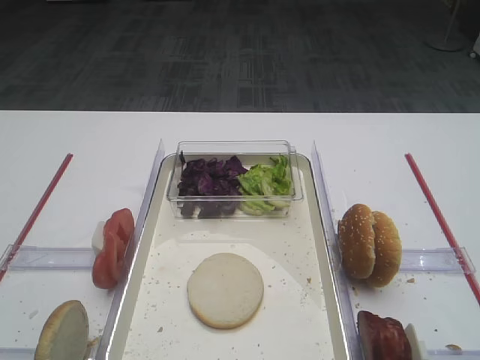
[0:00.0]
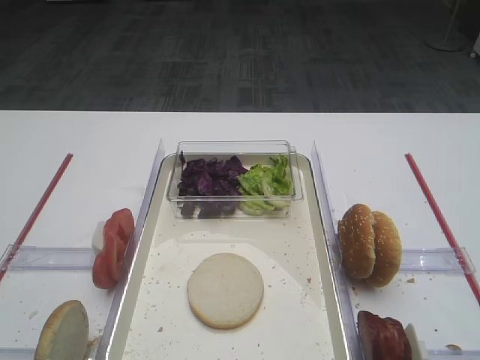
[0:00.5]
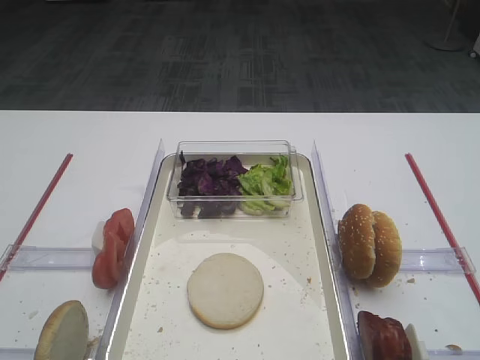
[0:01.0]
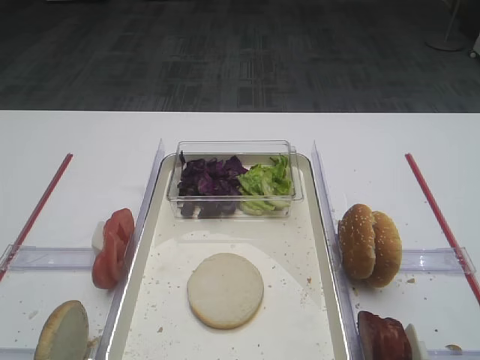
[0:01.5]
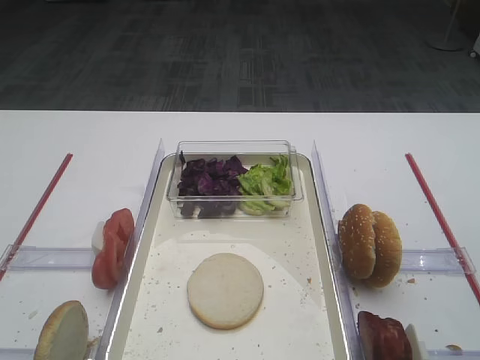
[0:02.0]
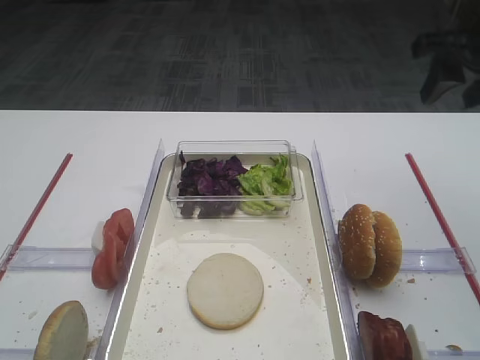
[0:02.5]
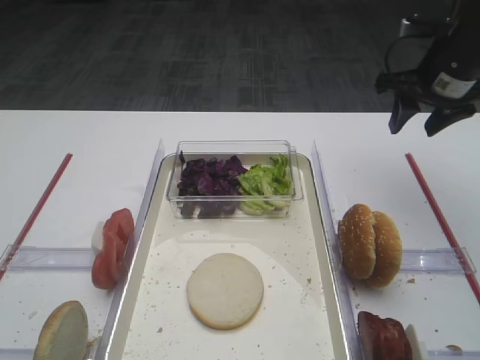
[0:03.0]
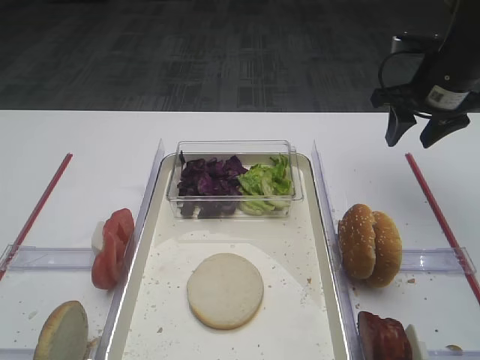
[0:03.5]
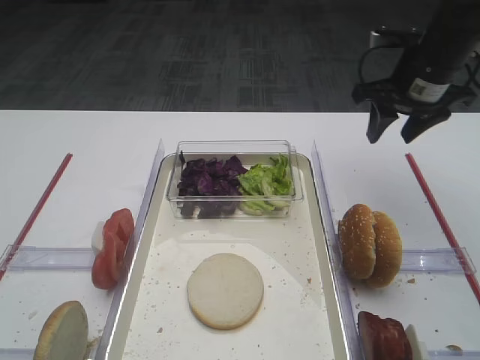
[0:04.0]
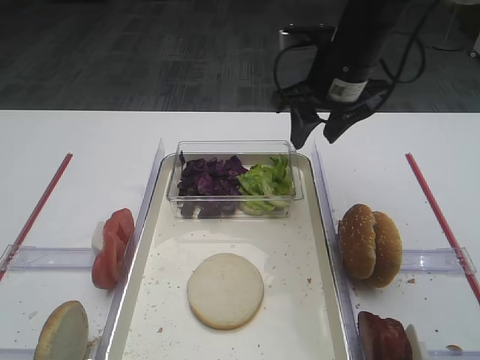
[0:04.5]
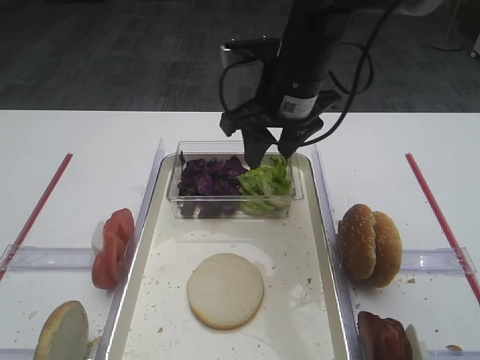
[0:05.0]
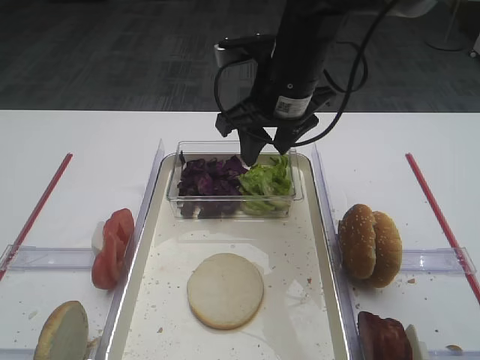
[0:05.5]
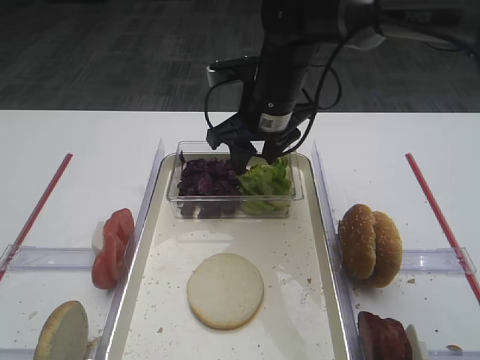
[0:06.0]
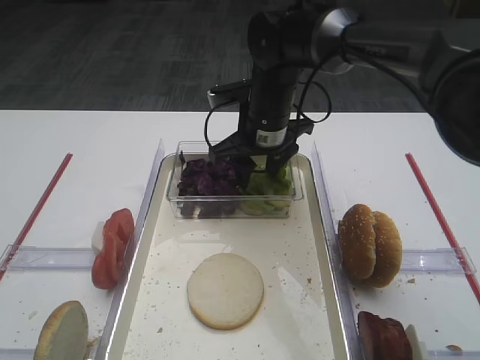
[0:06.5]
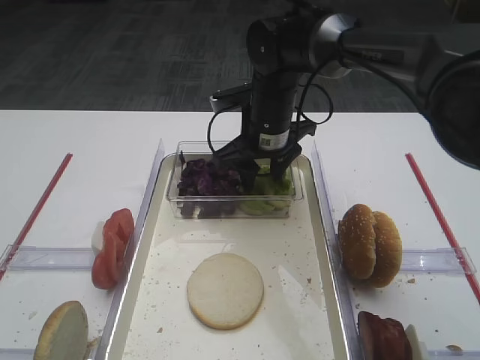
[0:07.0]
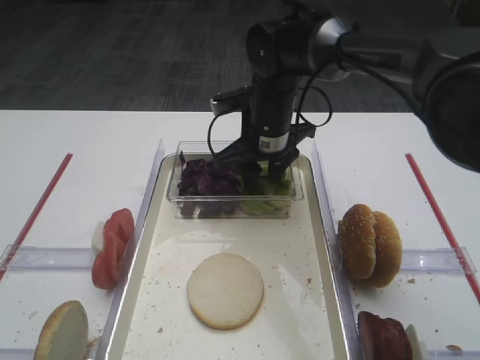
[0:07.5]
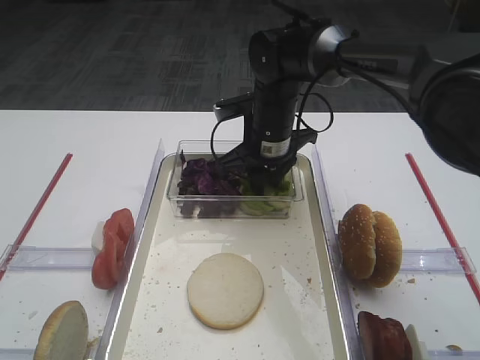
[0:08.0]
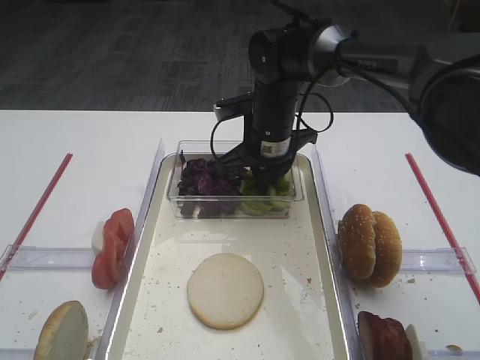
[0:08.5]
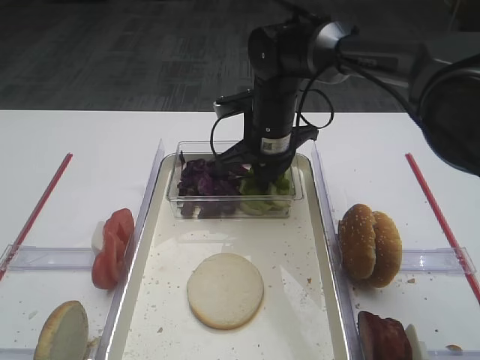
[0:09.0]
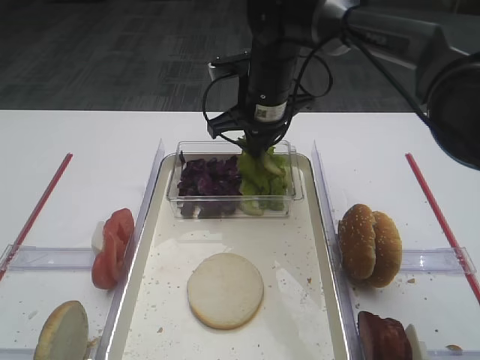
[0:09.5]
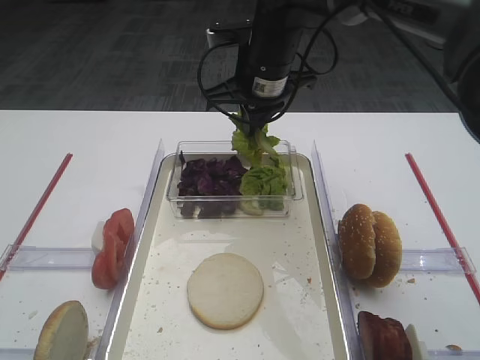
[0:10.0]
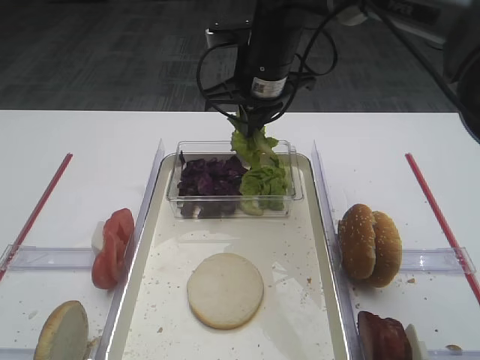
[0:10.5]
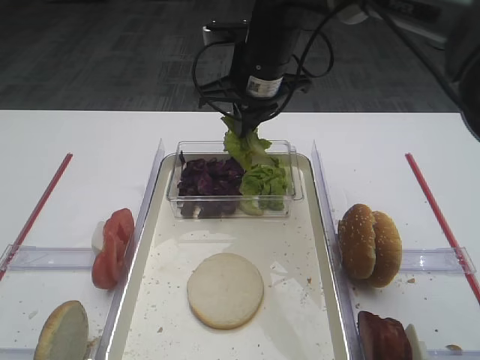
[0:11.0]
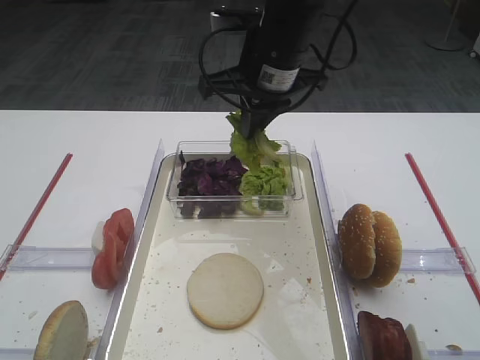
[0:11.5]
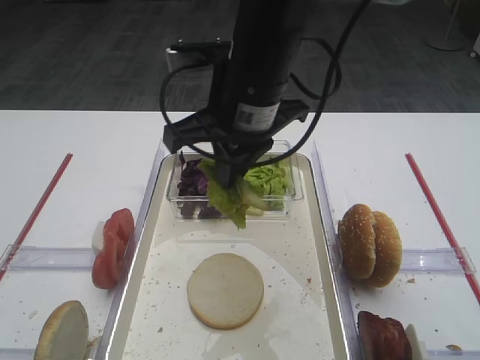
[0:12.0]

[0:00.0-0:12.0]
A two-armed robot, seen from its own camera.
Step, 0:00.0 to 0:10.0: Pick up the lettuce leaf with the right gripper.
0:02.0 to 0:04.0: The right gripper is displaced forward and downward by some 25 cm.
0:04.0 to 0:06.0: The right gripper heads to the left, covering about 20 cm.
0:06.0 to 0:08.0: The right gripper moves downward, about 5 cm.
0:08.0 to 0:10.0: The right gripper travels upward by some 10 cm, and closes up.
0:10.0 to 0:12.0: The right gripper goes about 10 cm backward.

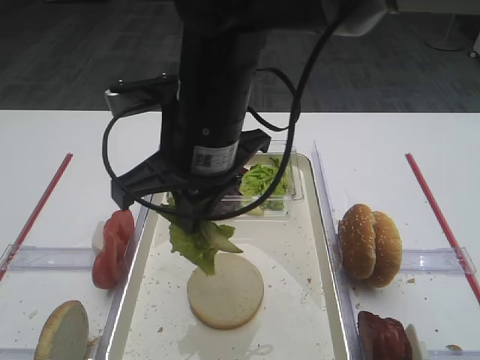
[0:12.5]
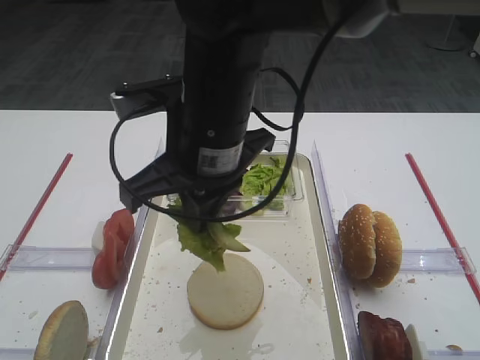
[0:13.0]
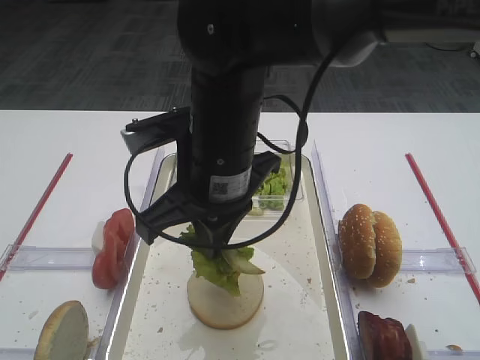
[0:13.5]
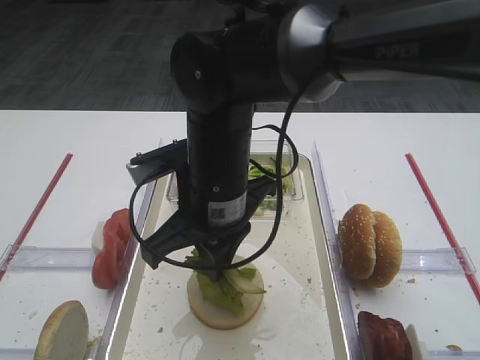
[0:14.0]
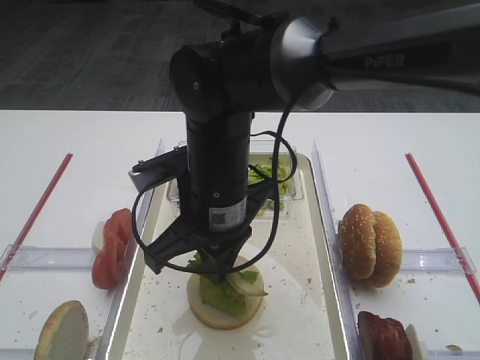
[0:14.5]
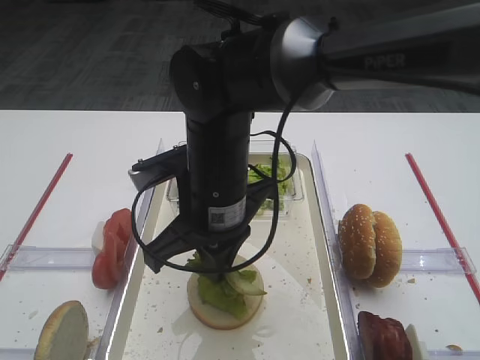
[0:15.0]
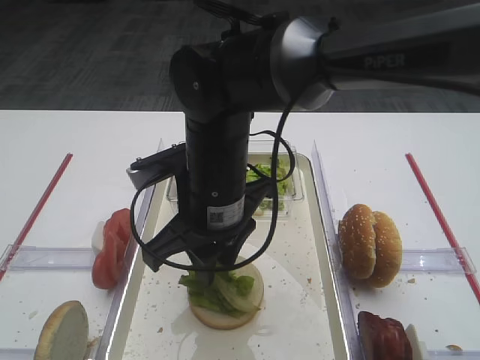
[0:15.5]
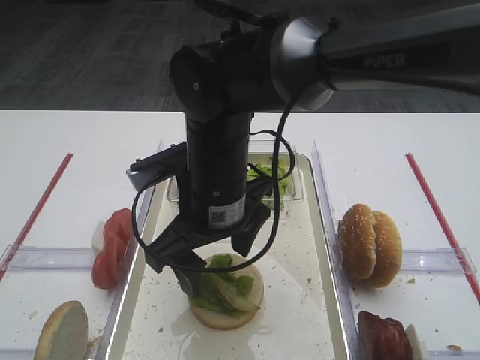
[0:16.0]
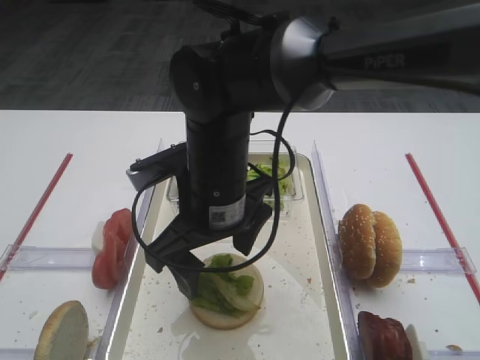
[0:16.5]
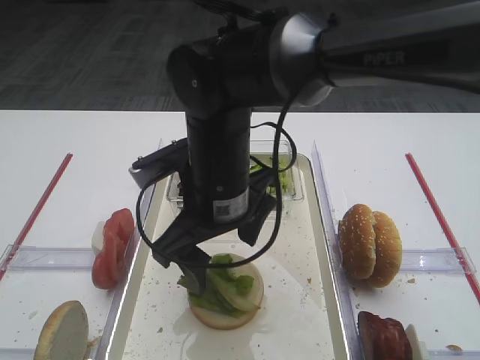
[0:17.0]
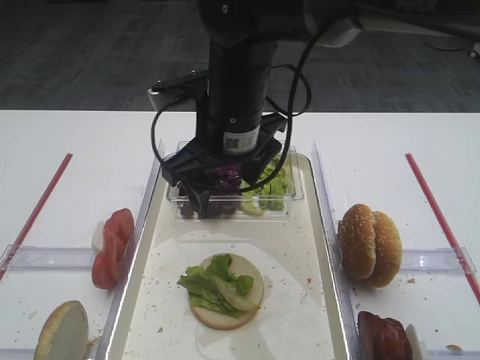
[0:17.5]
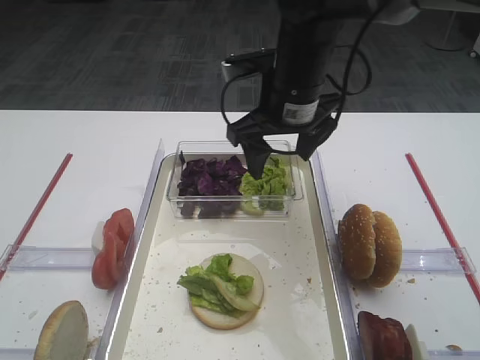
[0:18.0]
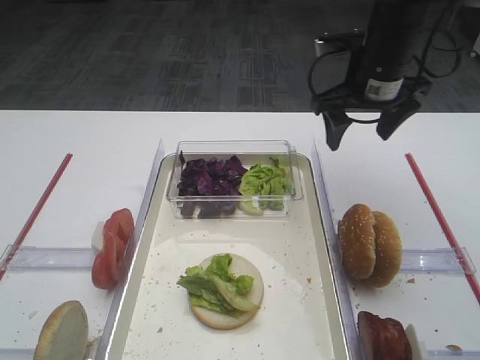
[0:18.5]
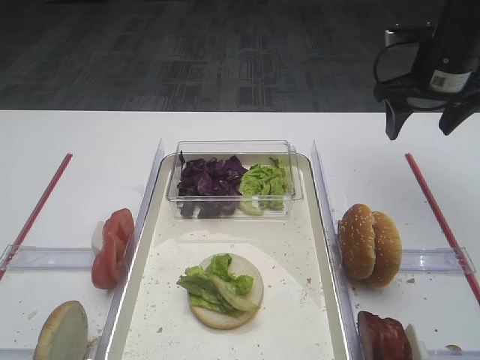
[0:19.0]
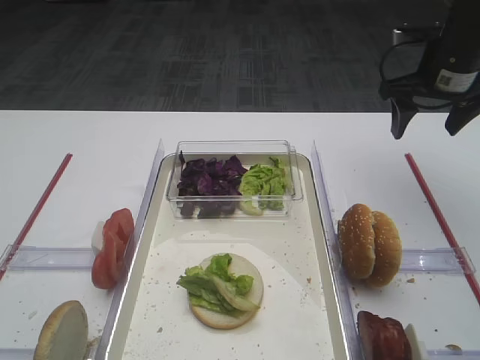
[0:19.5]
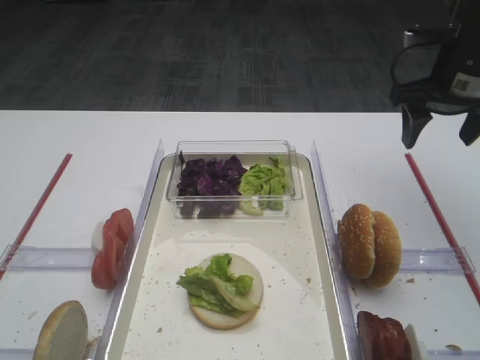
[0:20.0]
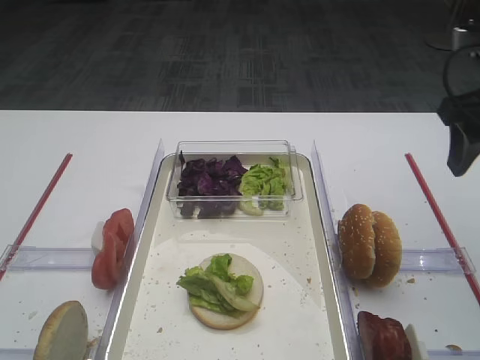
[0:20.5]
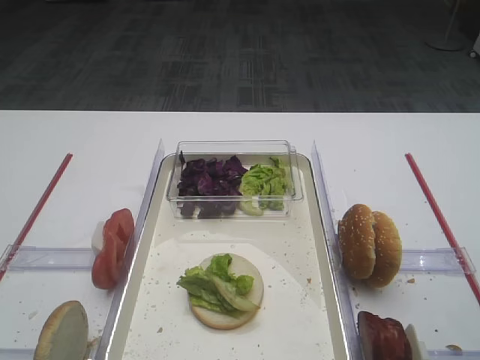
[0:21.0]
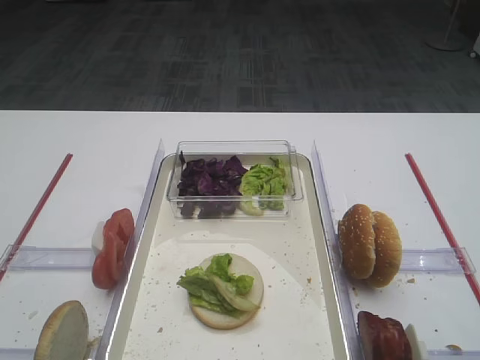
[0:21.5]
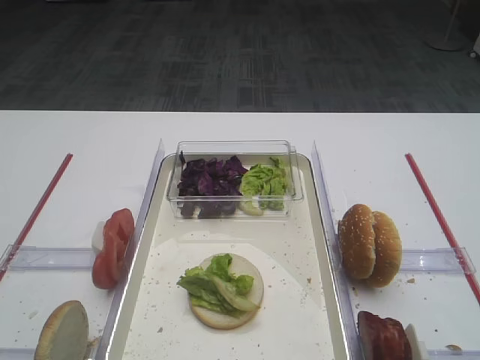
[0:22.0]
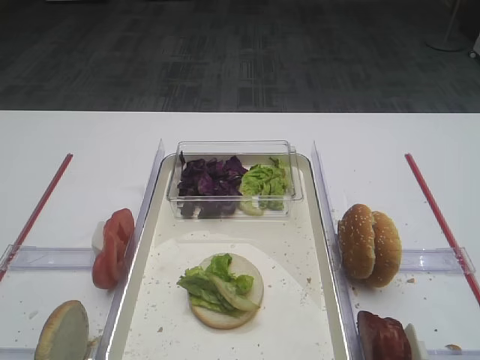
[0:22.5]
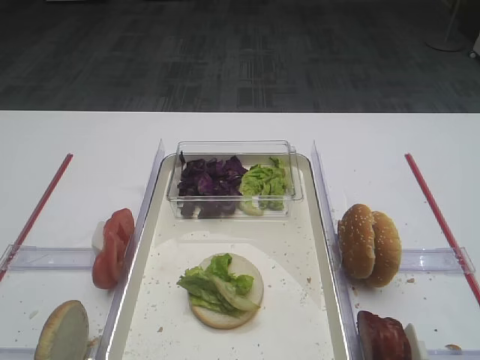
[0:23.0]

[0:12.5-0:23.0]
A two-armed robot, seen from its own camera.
Step, 0:12.5 to 0:16.5: Place the lettuce leaf on the bread slice with the right gripper.
0:12.5 to 0:14.5: The right gripper moves downward, about 5 cm.
0:14.5 to 0:16.5: The right gripper opens its fingers.
0:16.5 to 0:19.0: The right gripper shifts about 30 cm to the right and forward.
0:19.0 to 0:21.0: The right gripper travels backward by about 25 cm.

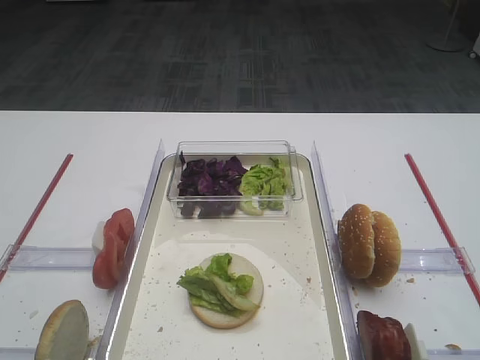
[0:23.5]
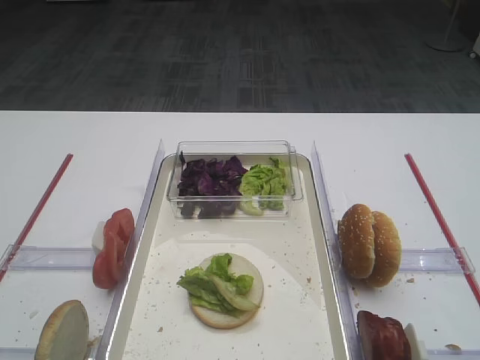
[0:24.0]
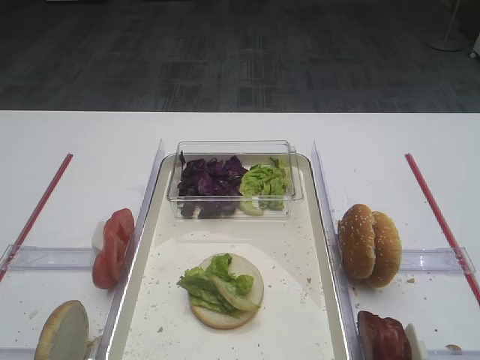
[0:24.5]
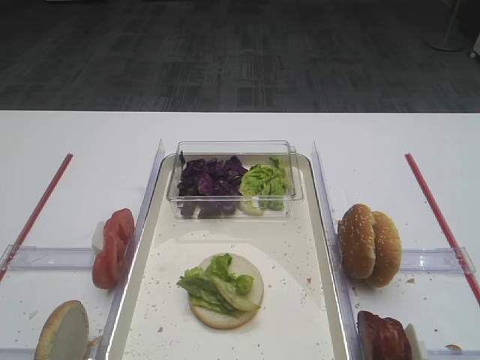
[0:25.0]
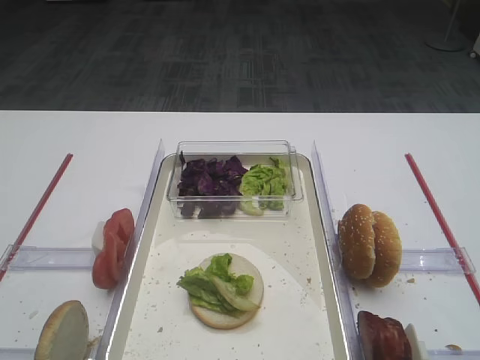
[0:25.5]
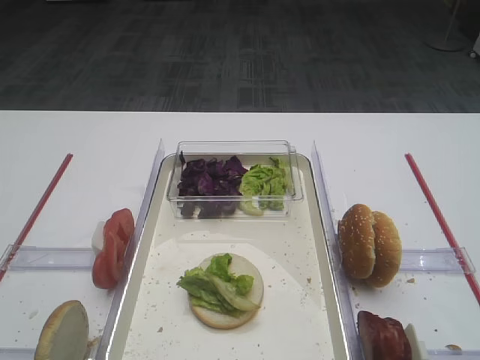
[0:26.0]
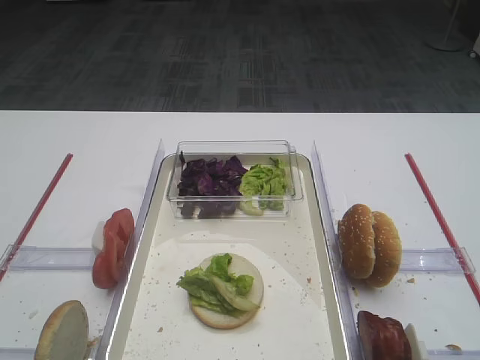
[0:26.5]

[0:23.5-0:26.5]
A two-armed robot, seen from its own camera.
0:23.5 to 0:26.5: Neither gripper changes place.
